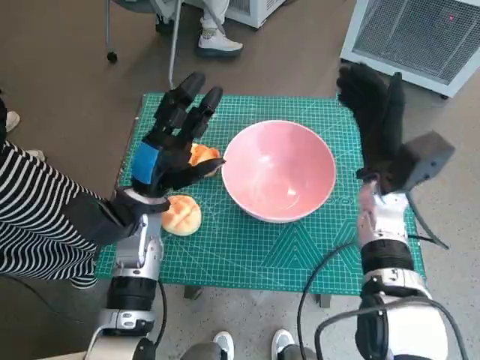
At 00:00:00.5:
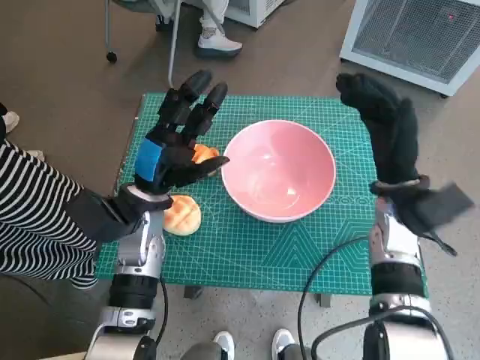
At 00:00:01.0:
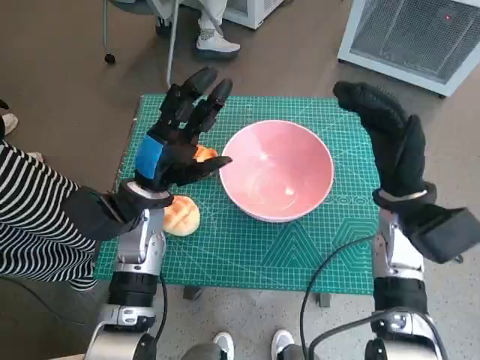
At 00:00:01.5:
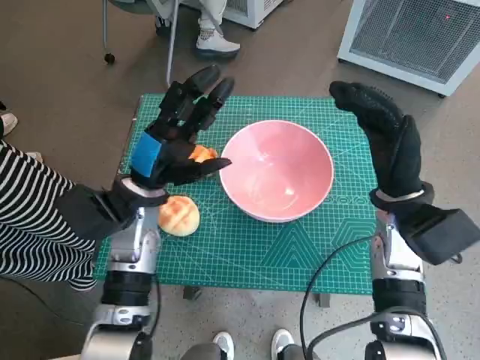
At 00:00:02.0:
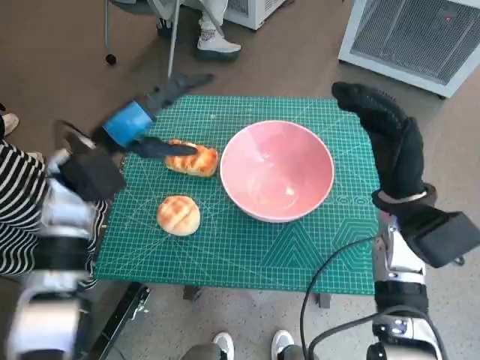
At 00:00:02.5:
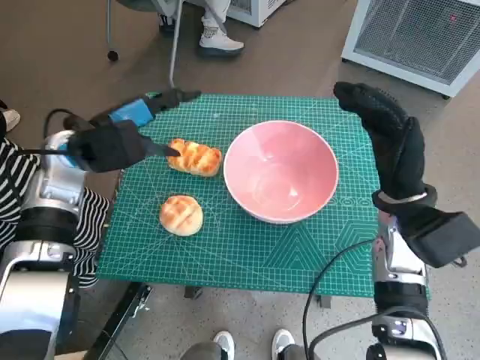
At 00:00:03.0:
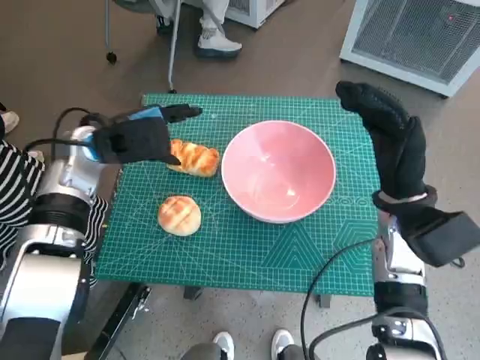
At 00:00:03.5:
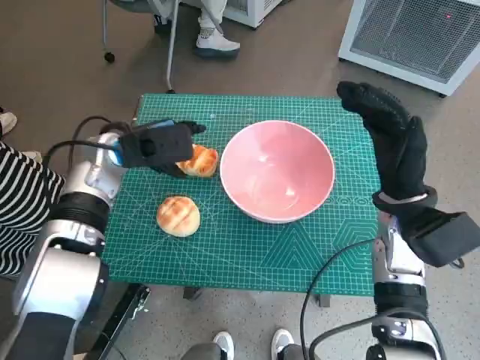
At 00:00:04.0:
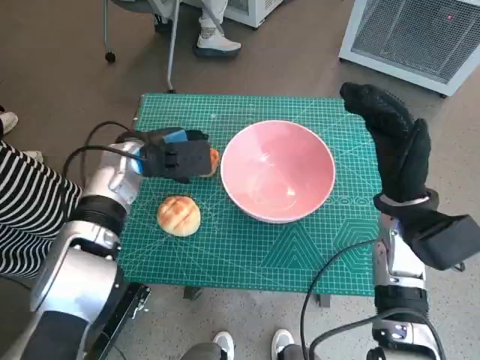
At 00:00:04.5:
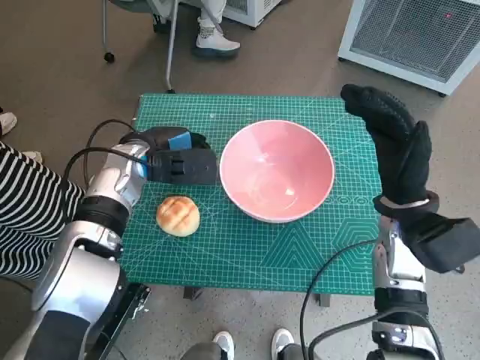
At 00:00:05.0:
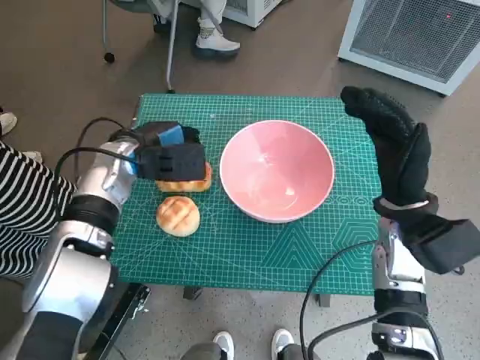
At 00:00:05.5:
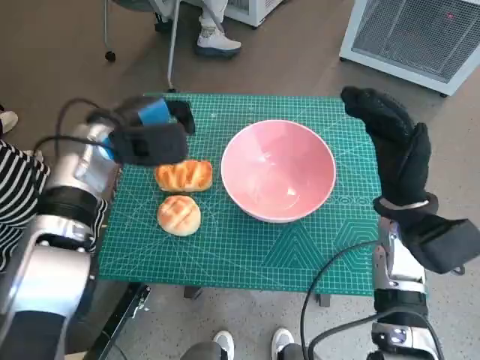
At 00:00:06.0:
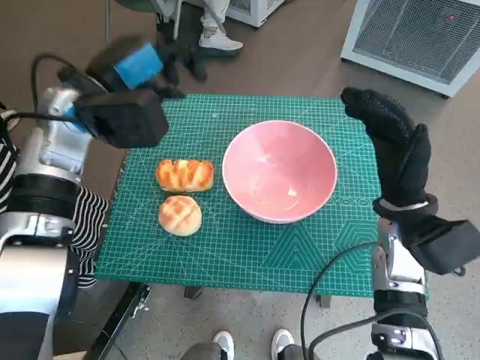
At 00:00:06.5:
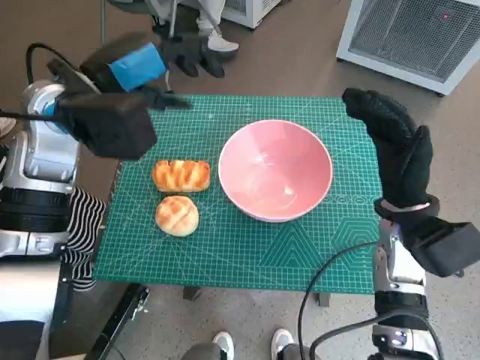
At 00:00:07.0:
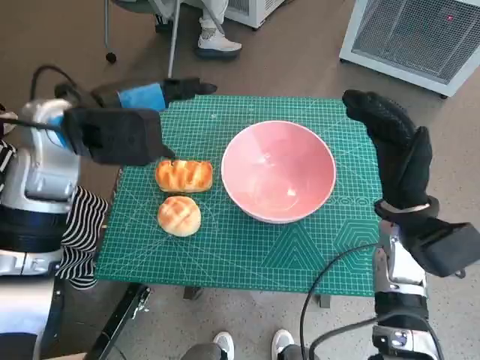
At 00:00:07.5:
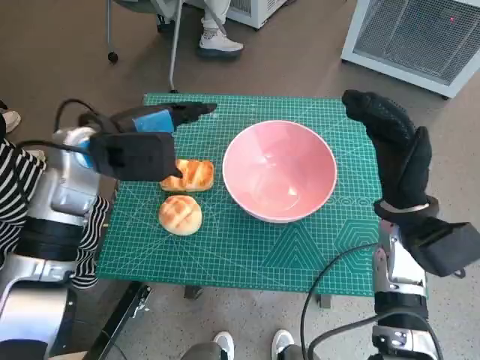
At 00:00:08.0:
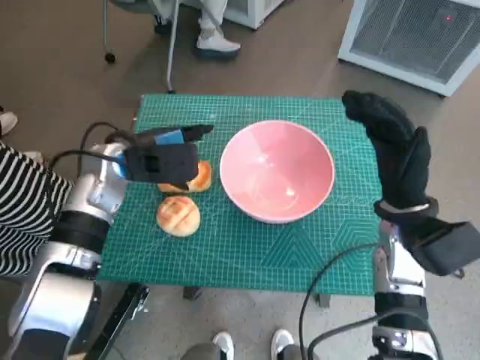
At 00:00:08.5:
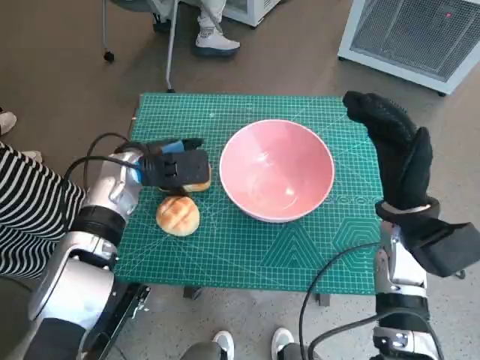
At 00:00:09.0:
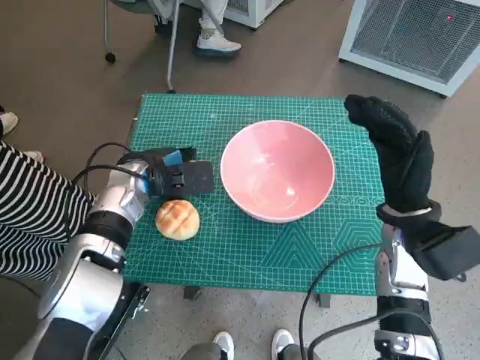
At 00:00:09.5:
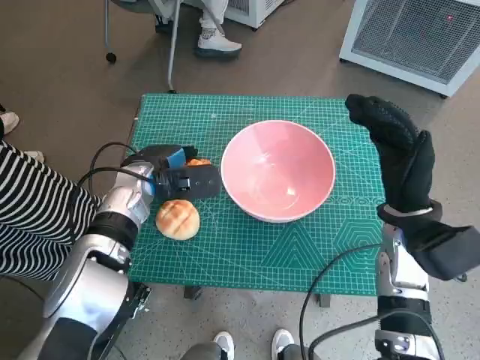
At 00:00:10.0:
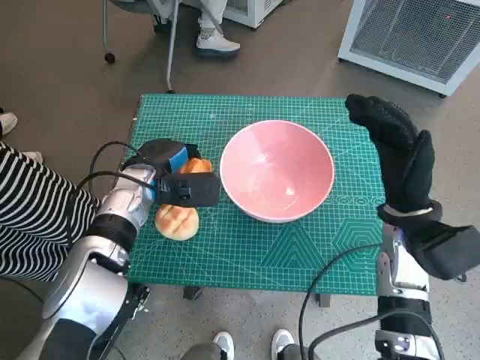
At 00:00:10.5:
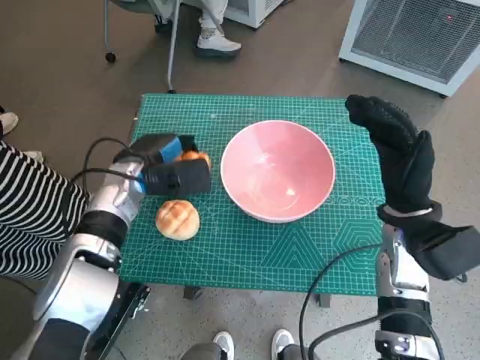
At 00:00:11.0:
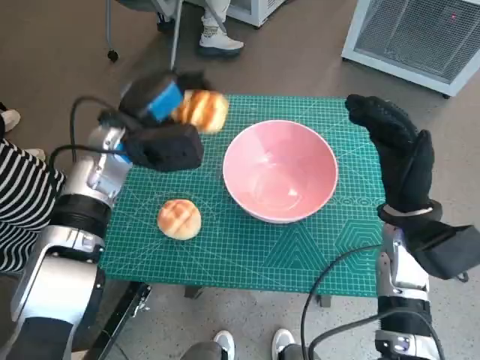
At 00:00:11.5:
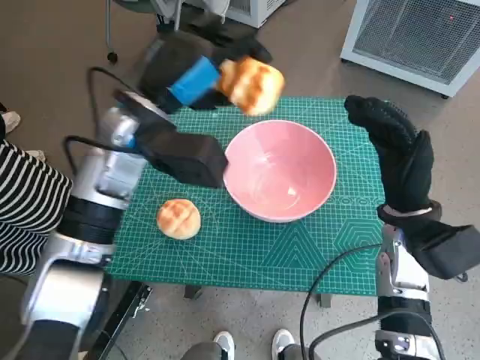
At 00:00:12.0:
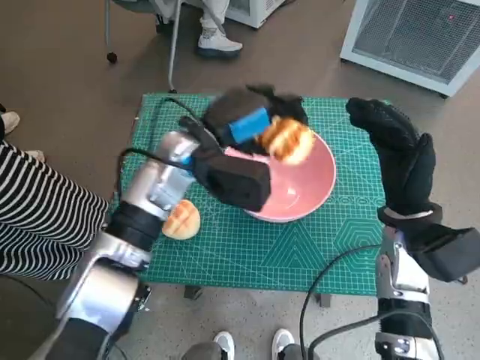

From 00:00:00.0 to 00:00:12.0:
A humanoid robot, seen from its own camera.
Task of the whole recording: Push the bowl into the center of the table and put the bread into the bowl.
Step, from 00:00:00.0 to 00:00:04.5: Grasp the long bread with left hand.
Step, from 00:00:05.0 to 00:00:09.5: Grasp the long bread with left hand.
From 00:00:00.0 to 00:00:02.0: The right hand shifts by some 5 cm. The left hand moves upward and to the left, about 10 cm.
From 00:00:02.0 to 00:00:04.0: The left hand shifts by approximately 5 cm.
From 00:00:04.0 to 00:00:06.0: The left hand moves upward, some 10 cm.
From 00:00:06.0 to 00:00:08.0: The left hand moves downward, roughly 10 cm.
From 00:00:08.0 to 00:00:10.0: The left hand is displaced downward by some 5 cm.
From 00:00:10.0 to 00:00:12.0: The left hand goes some 15 cm upward and to the right.

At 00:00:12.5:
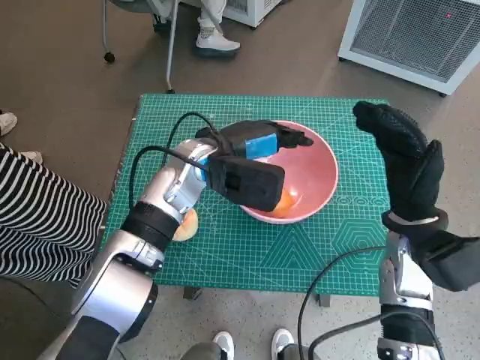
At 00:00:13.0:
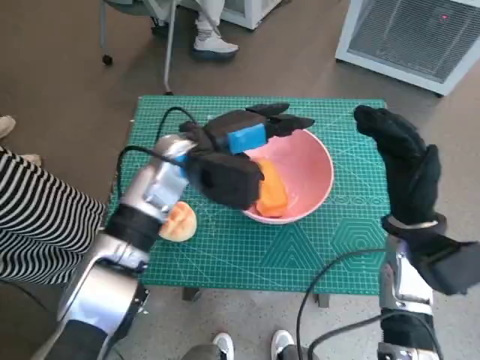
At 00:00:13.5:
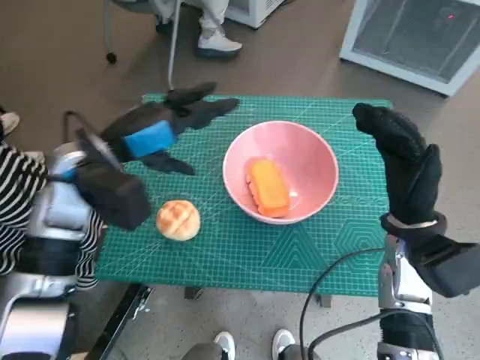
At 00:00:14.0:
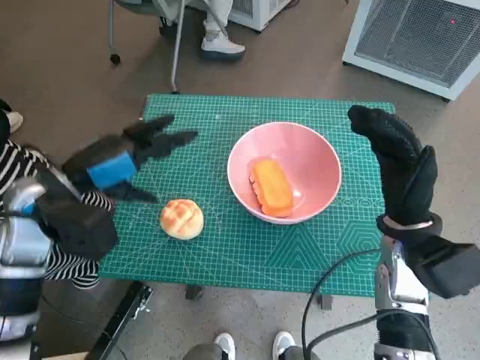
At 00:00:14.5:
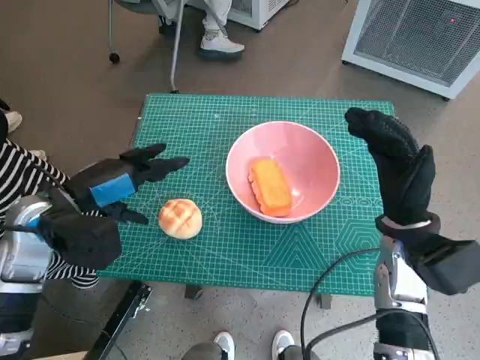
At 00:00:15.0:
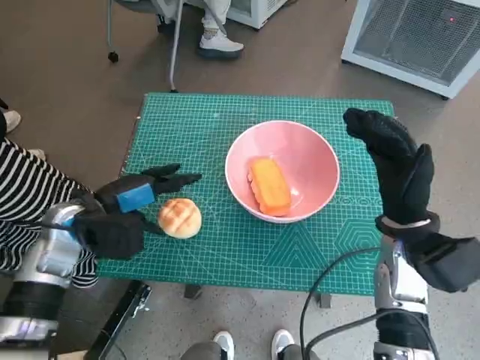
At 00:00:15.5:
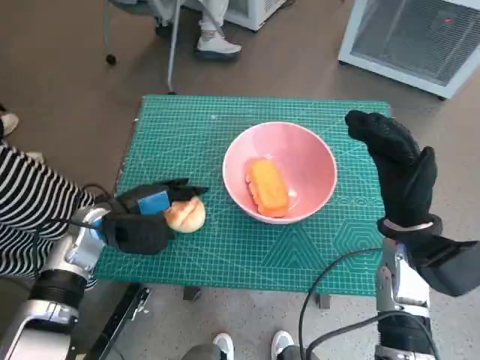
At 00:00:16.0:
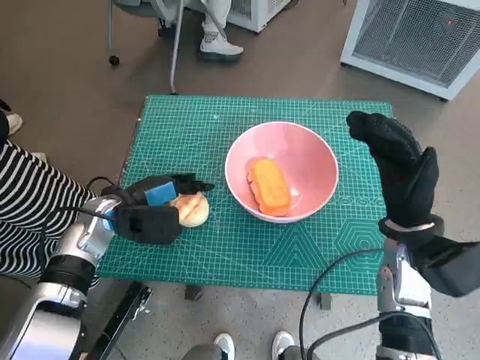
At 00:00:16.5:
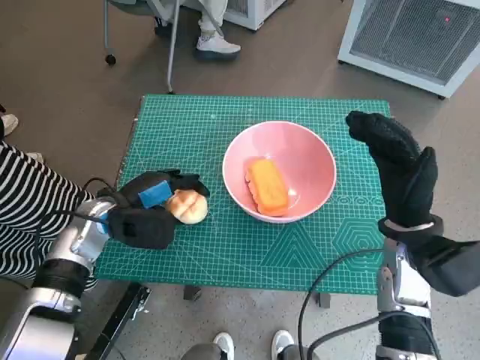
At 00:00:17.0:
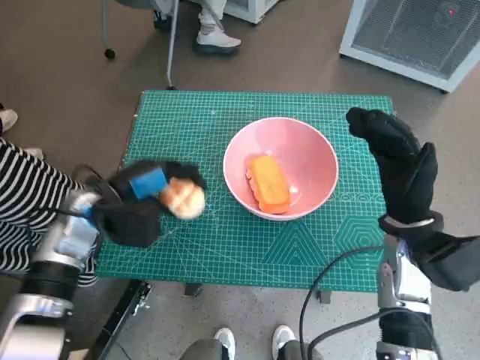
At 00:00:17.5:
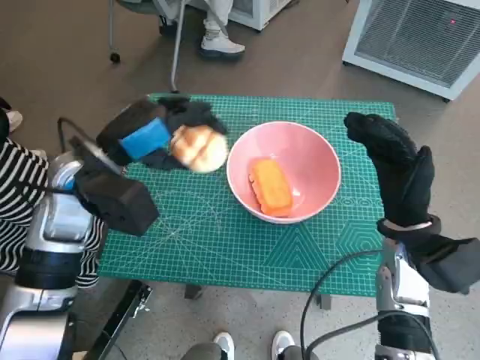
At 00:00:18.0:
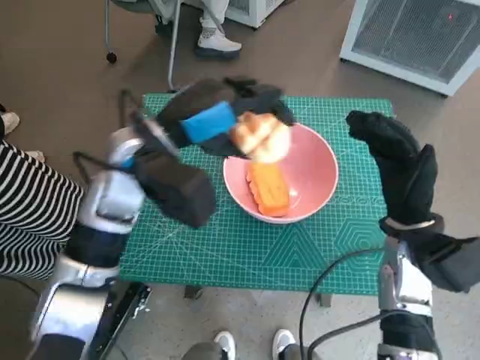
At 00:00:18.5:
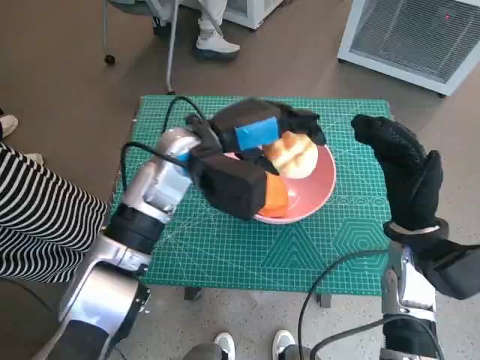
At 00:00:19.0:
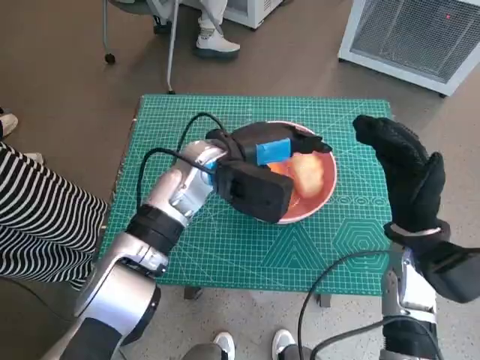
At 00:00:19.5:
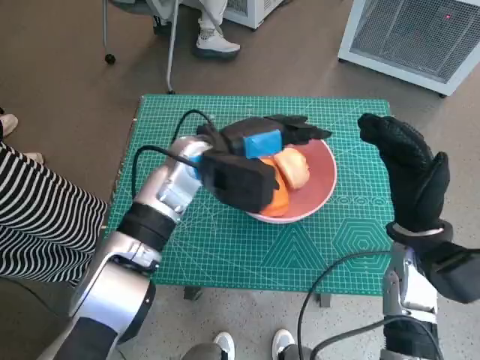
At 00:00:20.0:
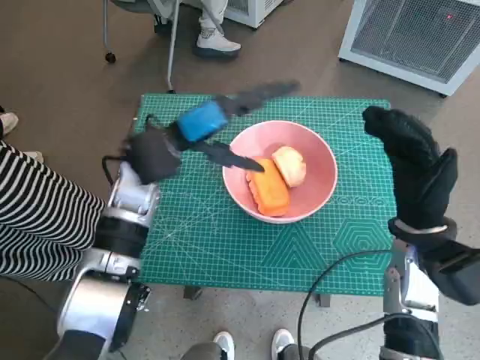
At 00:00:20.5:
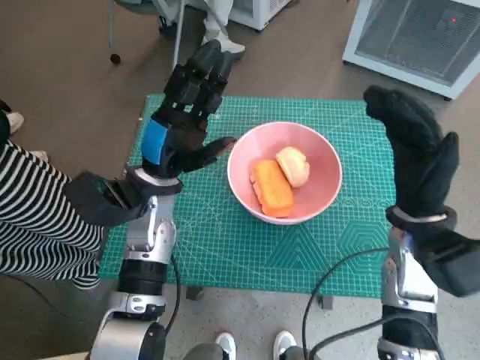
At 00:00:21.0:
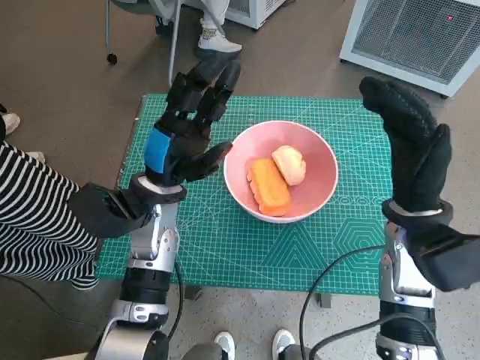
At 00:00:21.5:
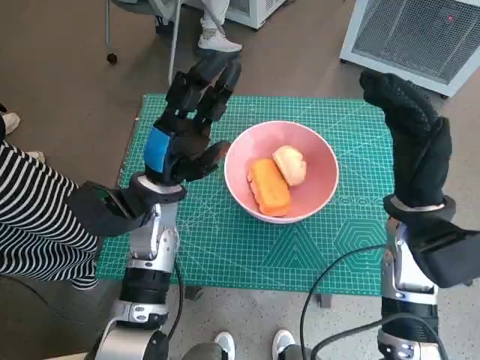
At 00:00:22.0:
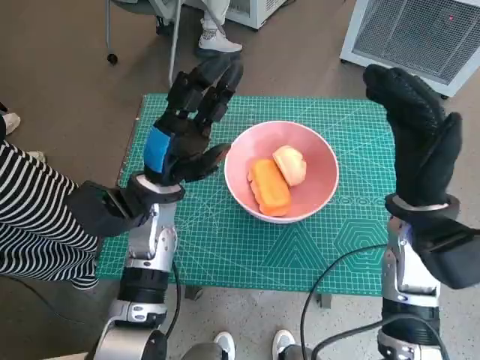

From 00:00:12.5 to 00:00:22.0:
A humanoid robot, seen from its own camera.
Task of the whole recording: Push the bowl into the center of the table and put the bread into the bowl.
Step, from 00:00:13.5 to 00:00:16.0: Grasp the round bread with left hand.
Step, from 00:00:16.5 to 00:00:19.5: Place the round bread in pink bowl with left hand.
From 00:00:12.5 to 00:00:14.5: The left hand heads to the left and backward, covering roughly 20 cm.
From 00:00:14.5 to 00:00:16.5: The left hand is displaced downward by some 10 cm.
From 00:00:16.5 to 00:00:18.0: The left hand moves upward and to the right, some 15 cm.
From 00:00:18.0 to 00:00:20.0: The left hand reaches about 5 cm to the right, then returns.
From 00:00:20.0 to 00:00:22.0: The left hand changes place by roughly 5 cm.

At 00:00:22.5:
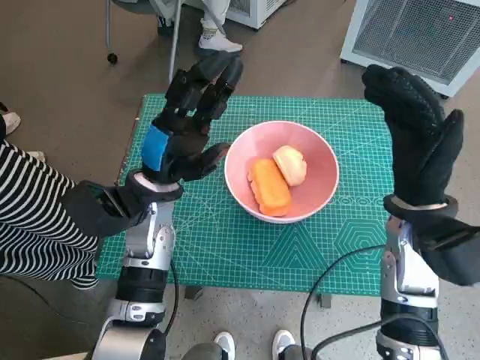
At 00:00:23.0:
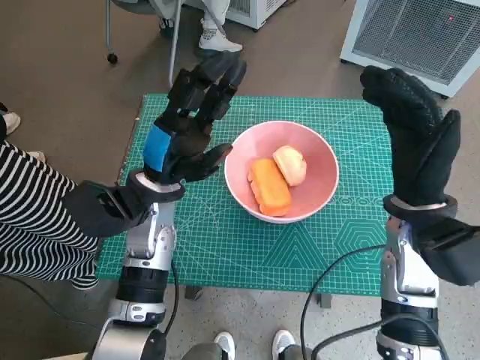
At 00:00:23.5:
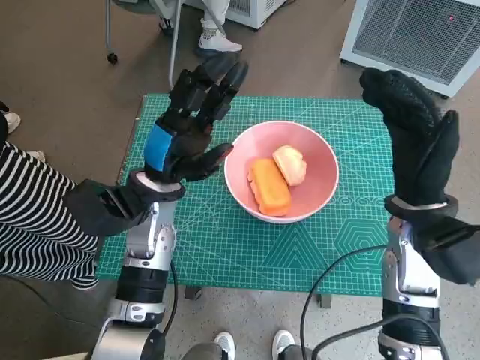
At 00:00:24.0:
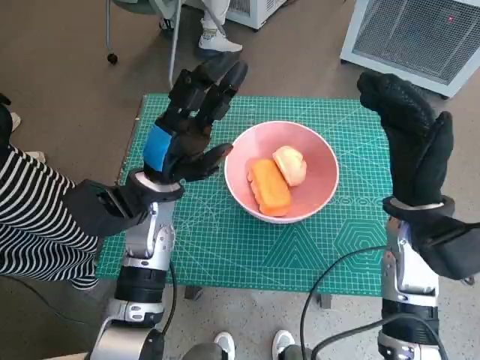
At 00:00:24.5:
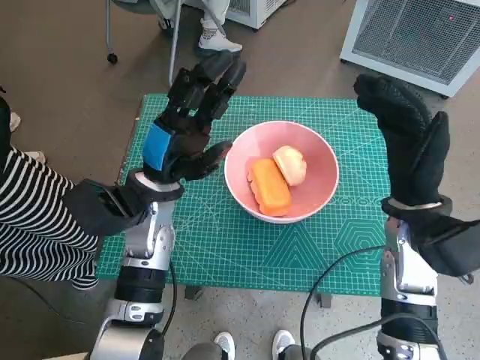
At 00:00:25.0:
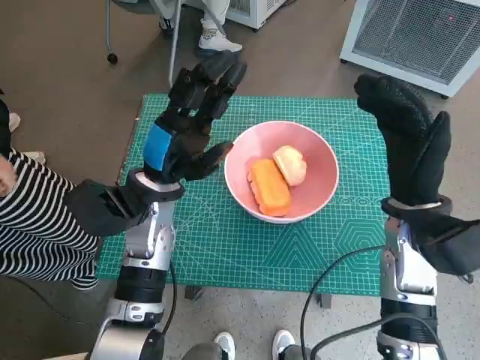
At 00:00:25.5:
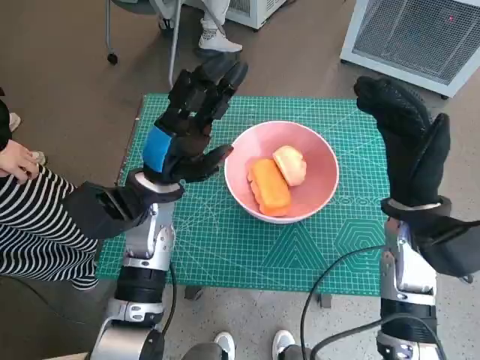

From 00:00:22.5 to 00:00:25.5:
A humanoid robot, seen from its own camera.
Task of the whole recording: Push the bowl into the center of the table and put the bread into the bowl.
From 00:00:22.5 to 00:00:25.5: Both hands stay put.
